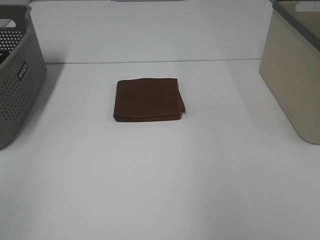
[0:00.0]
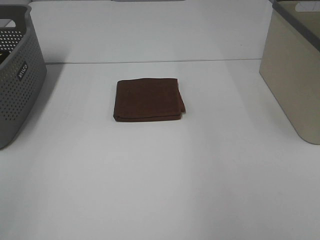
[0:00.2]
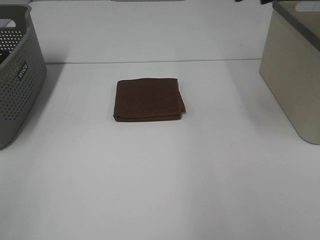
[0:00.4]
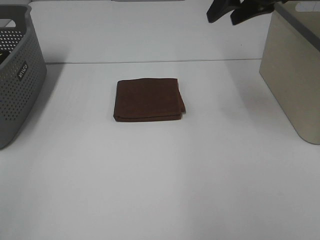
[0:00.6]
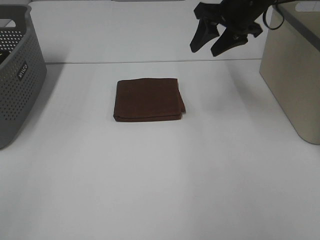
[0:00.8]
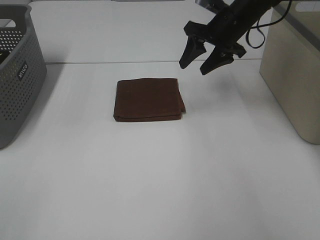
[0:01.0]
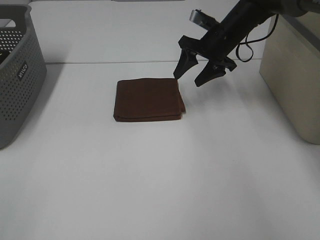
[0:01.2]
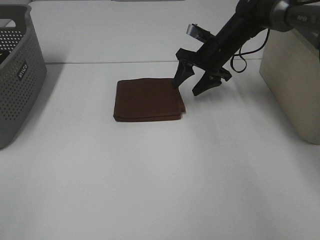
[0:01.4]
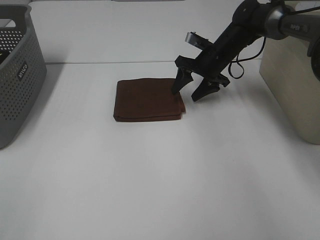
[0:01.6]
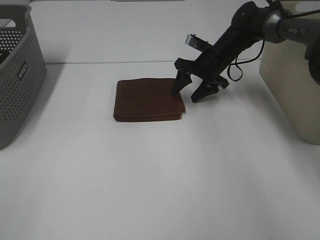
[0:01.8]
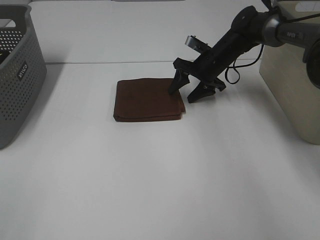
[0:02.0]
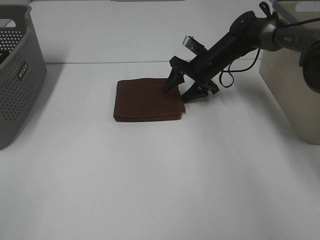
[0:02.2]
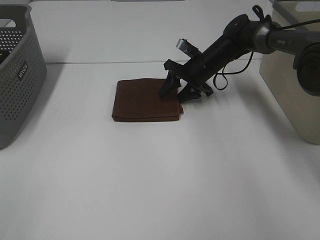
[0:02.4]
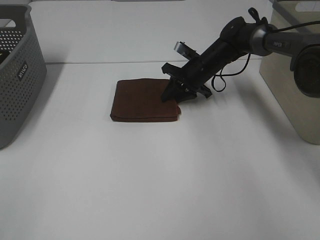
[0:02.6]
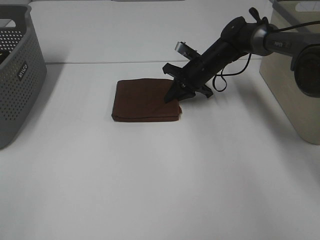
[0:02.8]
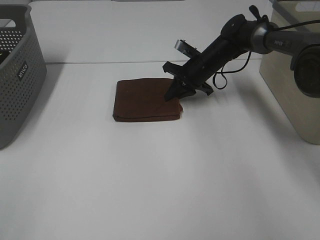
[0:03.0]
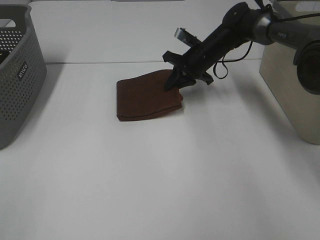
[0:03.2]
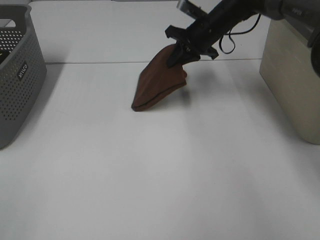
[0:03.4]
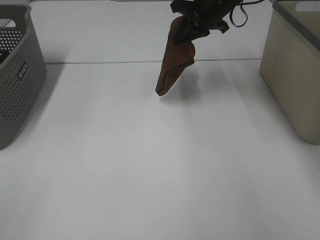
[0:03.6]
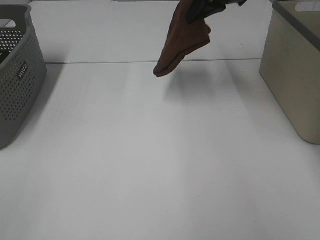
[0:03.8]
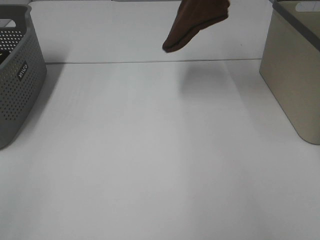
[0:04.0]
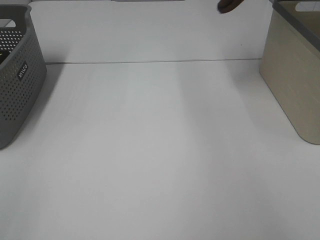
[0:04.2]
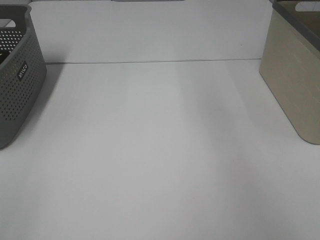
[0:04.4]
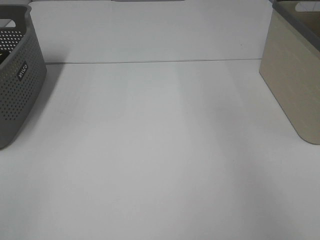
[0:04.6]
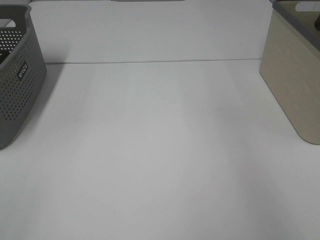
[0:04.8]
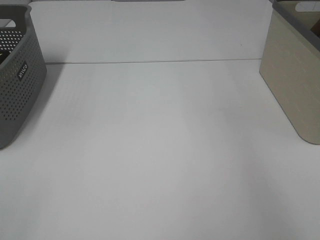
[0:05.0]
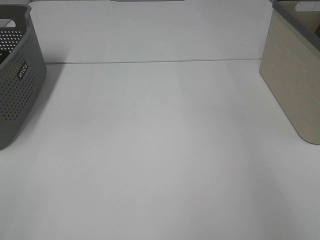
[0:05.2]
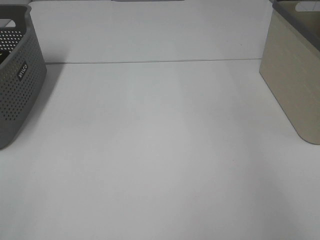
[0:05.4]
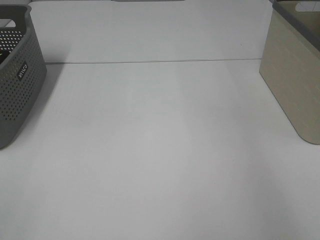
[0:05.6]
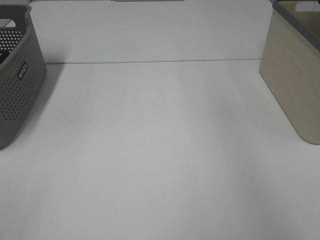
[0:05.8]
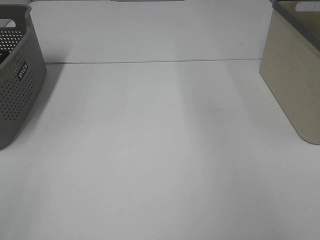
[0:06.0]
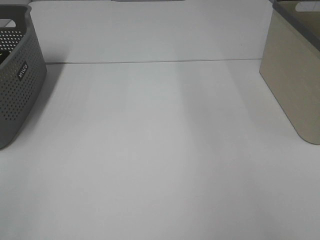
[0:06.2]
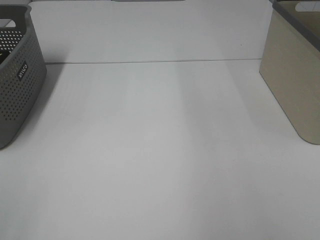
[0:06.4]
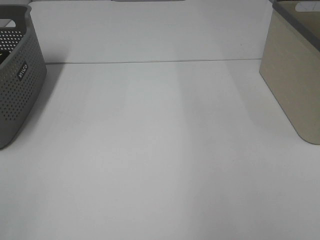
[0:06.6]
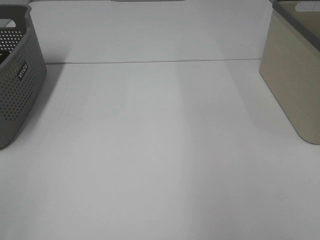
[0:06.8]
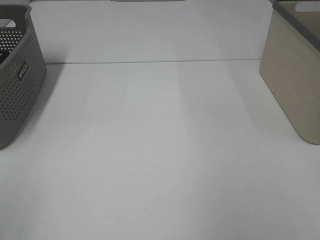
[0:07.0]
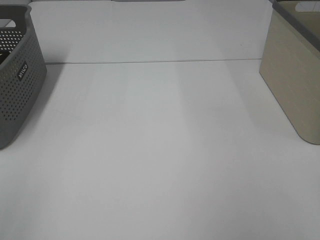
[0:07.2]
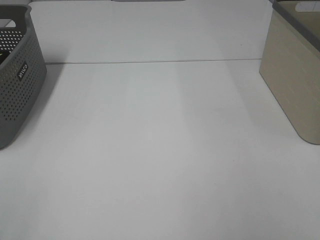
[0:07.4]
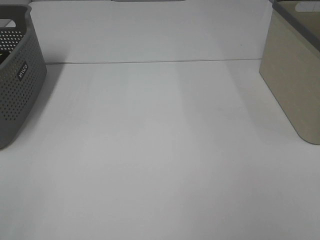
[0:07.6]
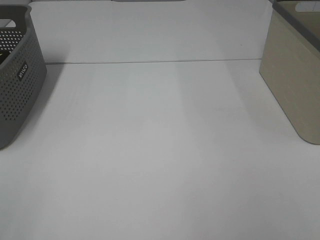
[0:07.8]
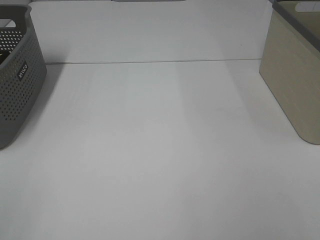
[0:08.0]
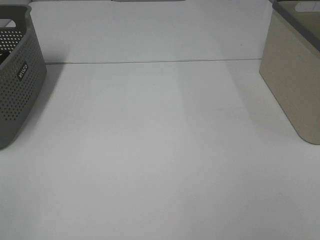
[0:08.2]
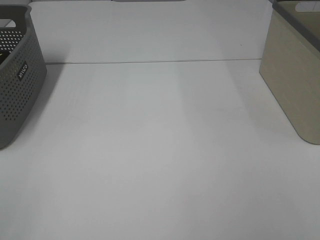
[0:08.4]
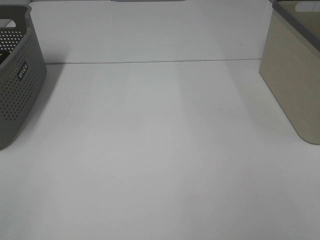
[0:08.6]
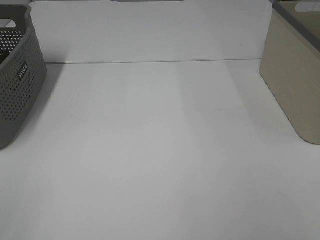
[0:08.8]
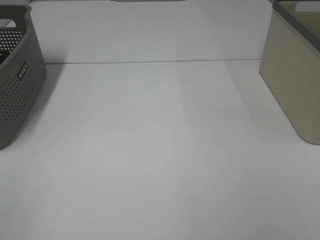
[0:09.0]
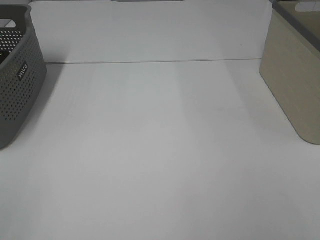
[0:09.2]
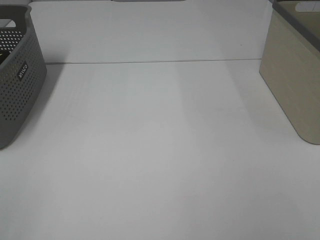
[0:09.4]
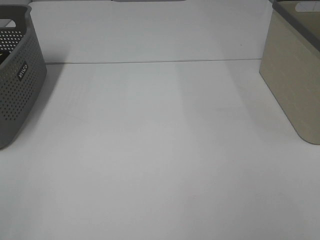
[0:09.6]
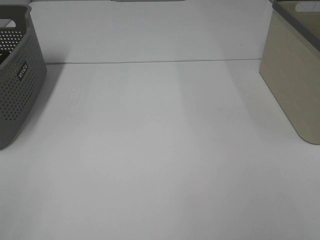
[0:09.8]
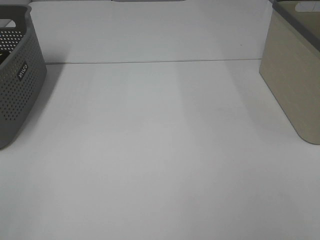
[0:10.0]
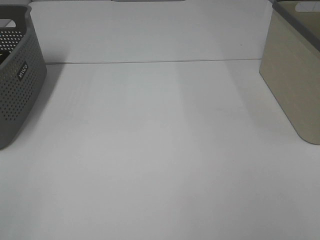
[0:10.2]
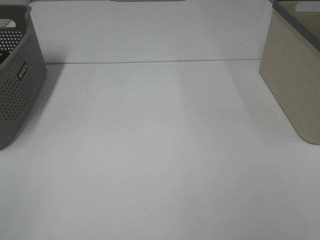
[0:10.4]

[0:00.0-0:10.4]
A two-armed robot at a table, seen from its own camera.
Step, 0:00.0 to 0:02.8: Right hand: grab the folded brown towel.
Step, 0:03.0 to 0:05.6: Right hand: place the brown towel in right basket.
0:00.0 to 0:01.4: The right gripper goes about 35 cm downward, forward and to the left.
0:01.4 to 0:03.0: The right gripper closes.
0:03.0 to 0:04.4: The right gripper is displaced upward and to the right by about 40 cm.
0:09.0 to 0:10.4: Neither gripper changes place.

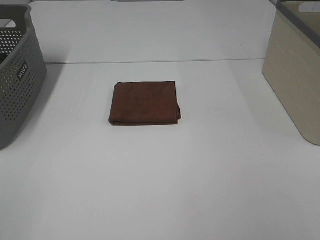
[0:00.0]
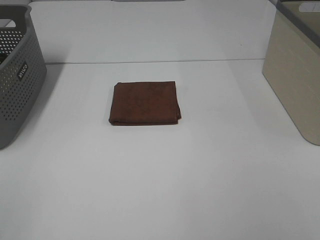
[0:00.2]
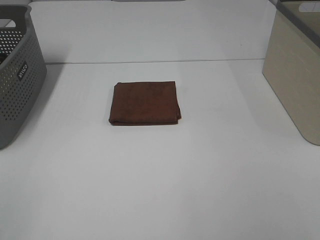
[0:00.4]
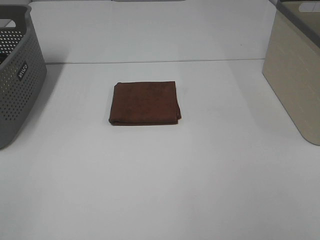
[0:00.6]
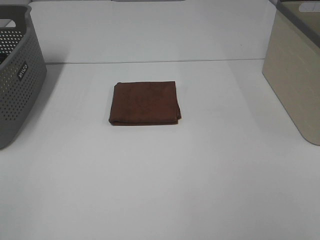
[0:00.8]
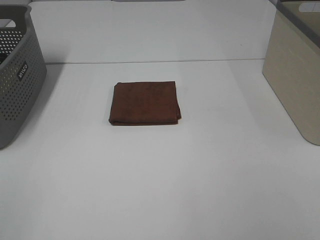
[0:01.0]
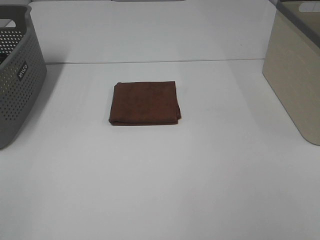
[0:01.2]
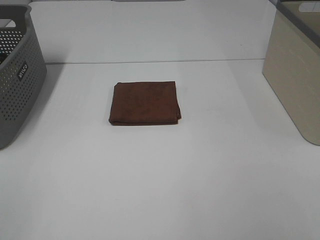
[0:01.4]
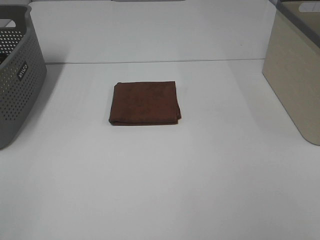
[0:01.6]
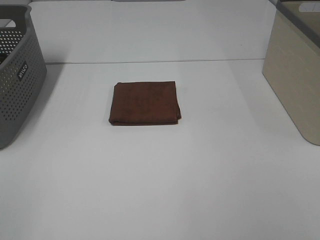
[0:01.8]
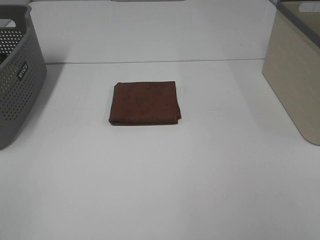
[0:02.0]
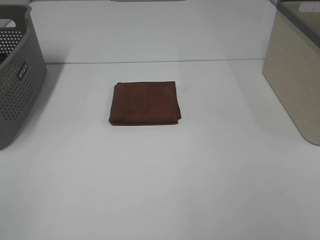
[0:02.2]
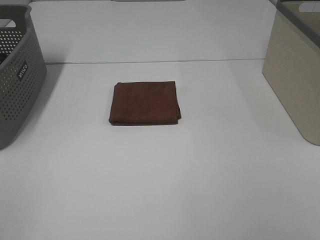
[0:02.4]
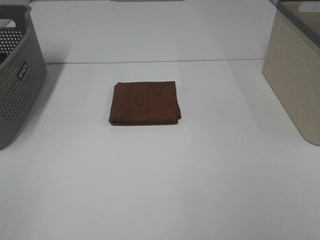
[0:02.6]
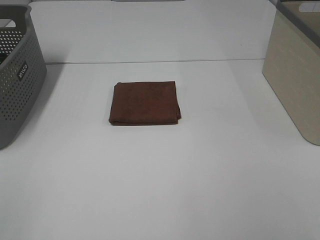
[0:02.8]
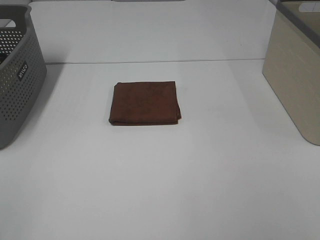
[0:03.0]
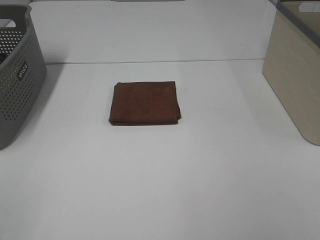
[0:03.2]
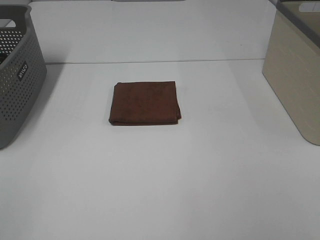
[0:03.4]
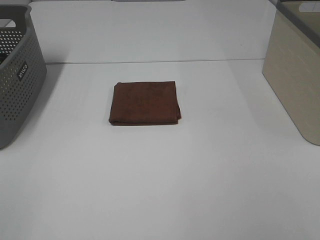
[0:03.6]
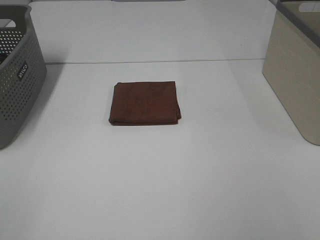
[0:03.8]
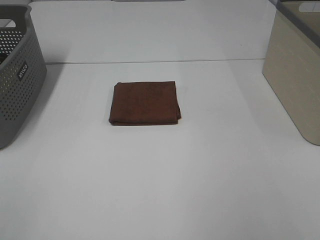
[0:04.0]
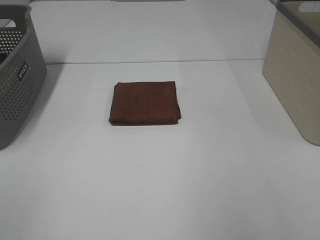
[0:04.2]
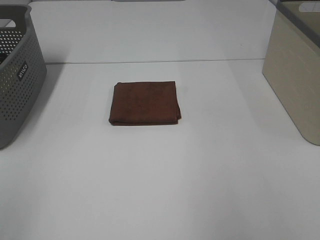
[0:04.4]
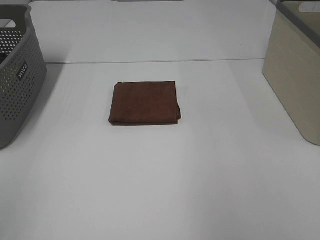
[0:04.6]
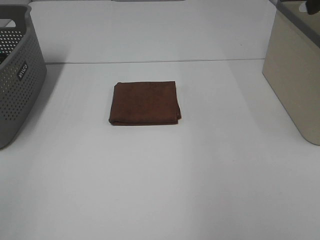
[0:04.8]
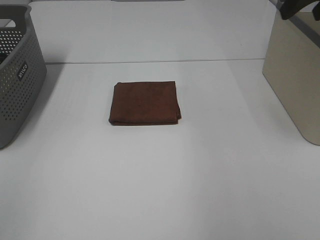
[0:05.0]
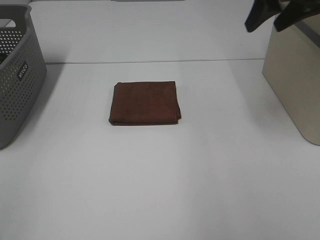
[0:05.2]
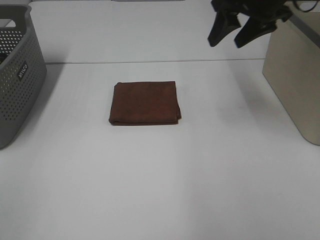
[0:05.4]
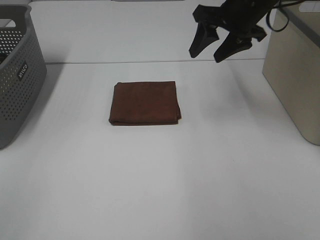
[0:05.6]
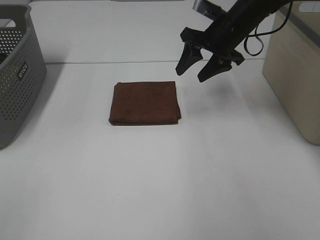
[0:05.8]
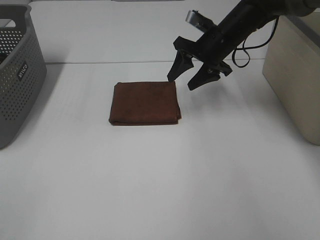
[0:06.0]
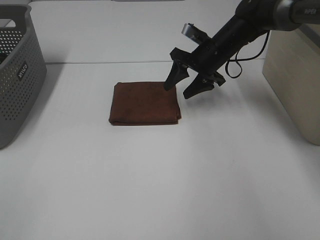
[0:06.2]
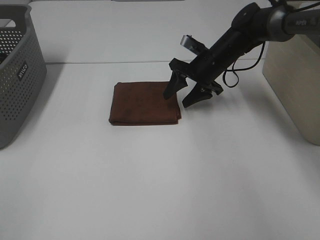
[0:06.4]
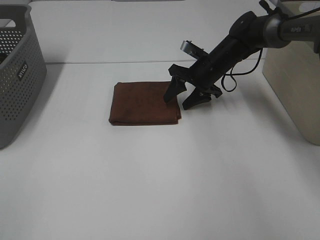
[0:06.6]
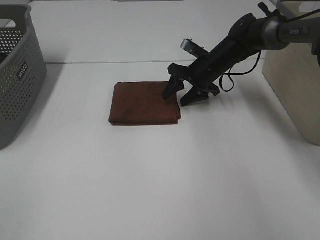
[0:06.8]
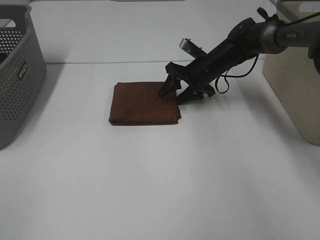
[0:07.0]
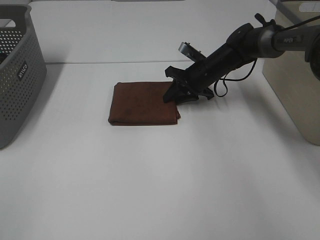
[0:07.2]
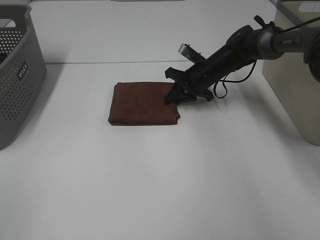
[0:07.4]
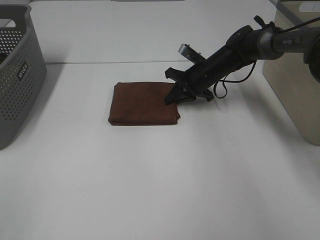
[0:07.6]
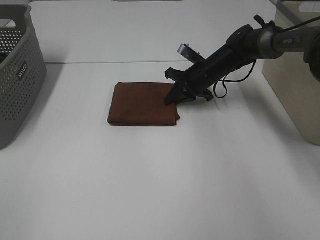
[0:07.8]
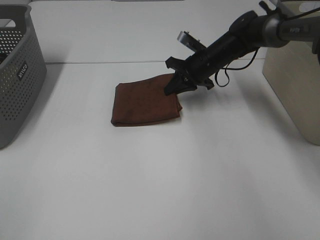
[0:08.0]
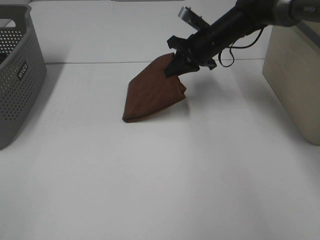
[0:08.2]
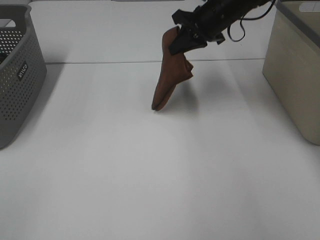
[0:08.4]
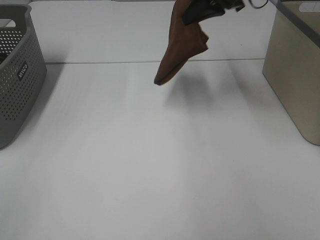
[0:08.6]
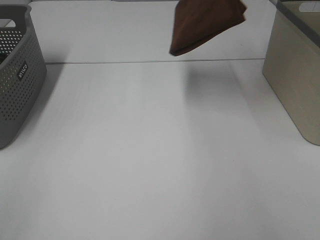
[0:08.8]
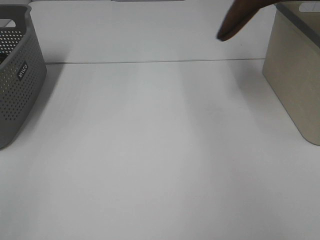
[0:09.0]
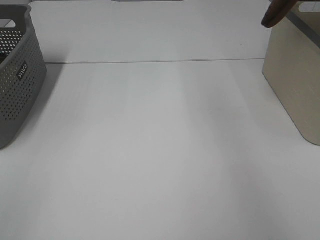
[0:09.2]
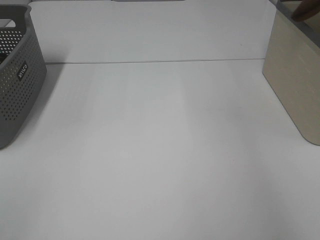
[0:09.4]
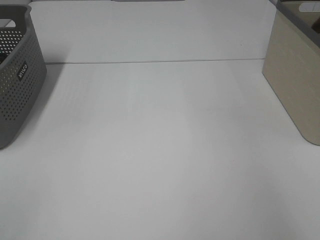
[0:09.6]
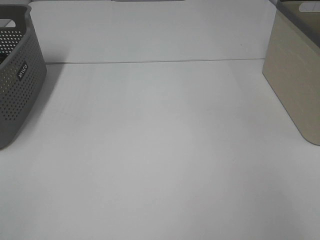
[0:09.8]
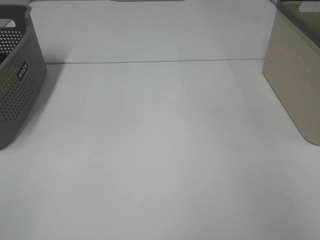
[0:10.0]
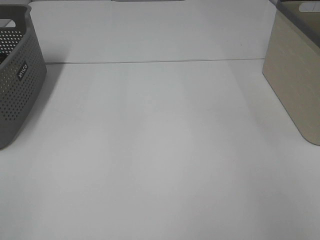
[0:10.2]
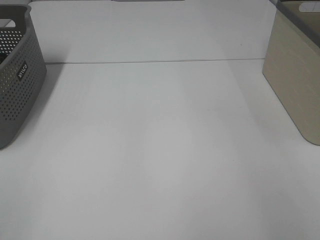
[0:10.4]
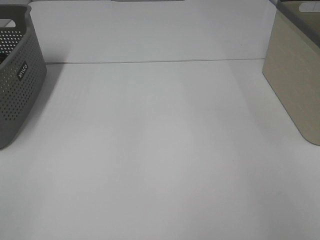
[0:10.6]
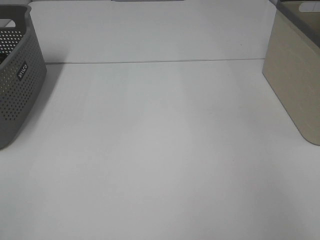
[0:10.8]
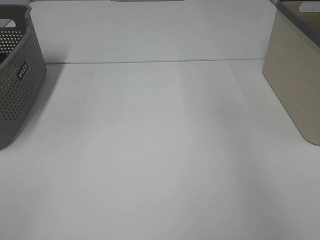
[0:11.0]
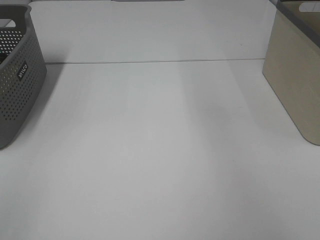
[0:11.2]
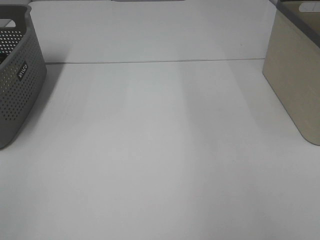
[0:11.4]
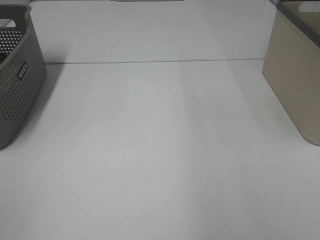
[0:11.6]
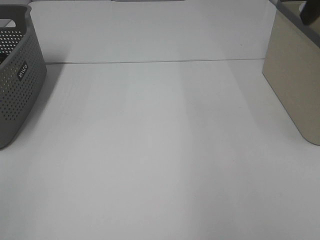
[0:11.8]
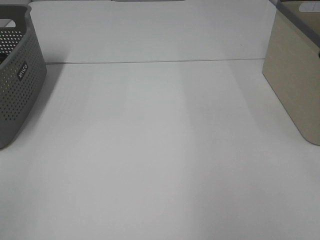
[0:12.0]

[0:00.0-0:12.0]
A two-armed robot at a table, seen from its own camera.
Step, 0:00.0 to 0:07.6: Right hand: grab the folded brown towel.
Step, 0:07.8 to 0:10.6: Right hand: place the brown towel in right basket.
0:00.0 to 0:03.0: Neither gripper changes place.
0:04.4 to 0:06.0: The right gripper goes about 40 cm forward, downward and to the left.
0:06.0 to 0:07.6: The right gripper is displaced downward by about 10 cm, and closes up.
0:07.6 to 0:09.0: The right gripper moves upward and to the right, approximately 35 cm.
0:09.0 to 0:10.4: The right gripper travels to the right and downward by roughly 20 cm, and opens.
